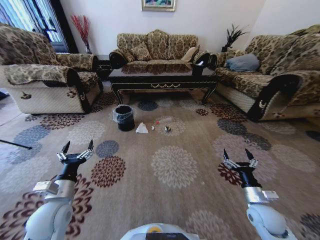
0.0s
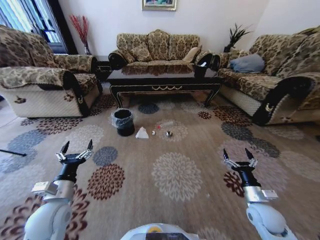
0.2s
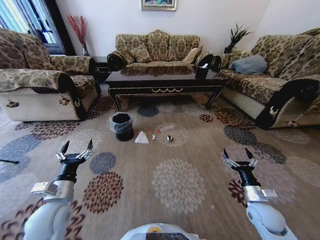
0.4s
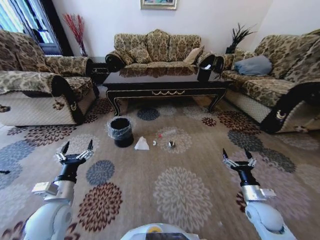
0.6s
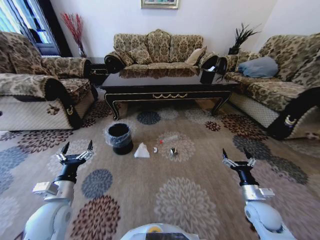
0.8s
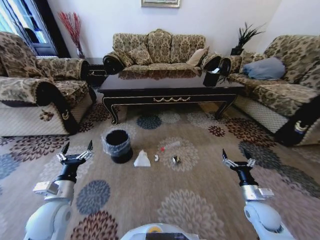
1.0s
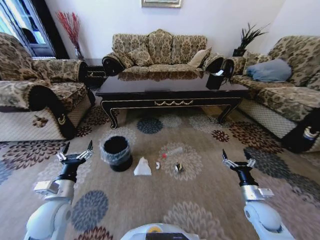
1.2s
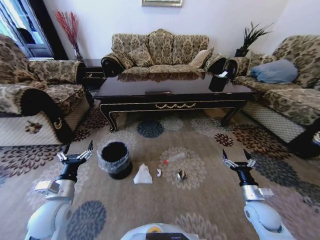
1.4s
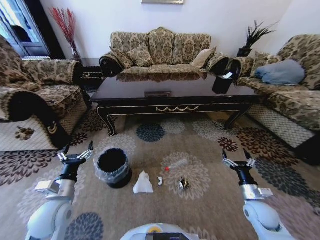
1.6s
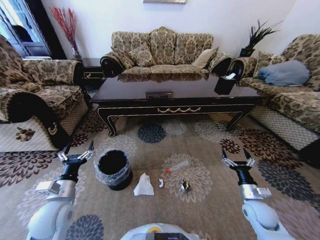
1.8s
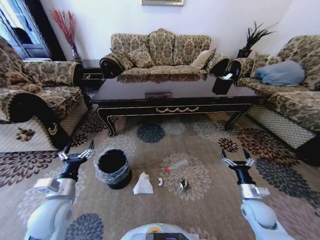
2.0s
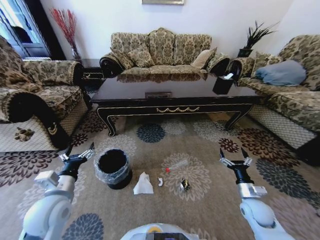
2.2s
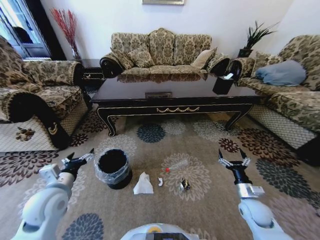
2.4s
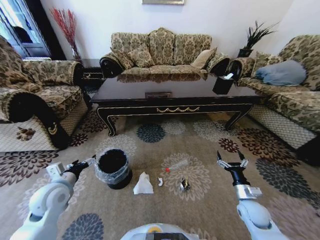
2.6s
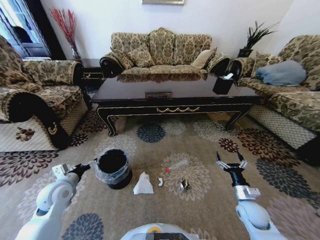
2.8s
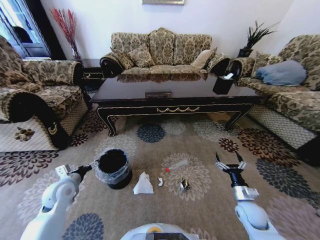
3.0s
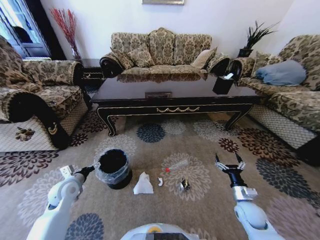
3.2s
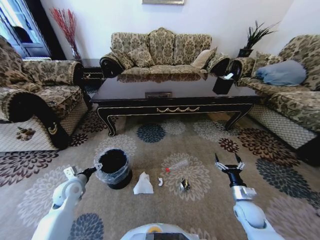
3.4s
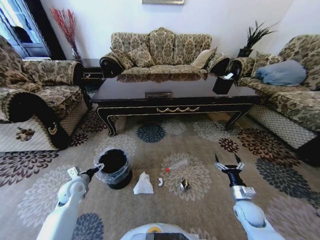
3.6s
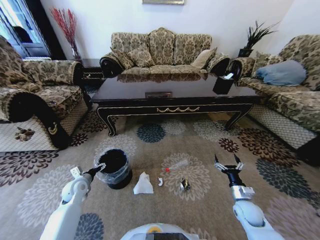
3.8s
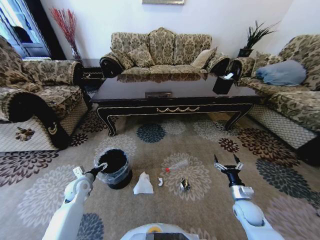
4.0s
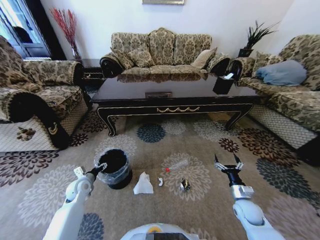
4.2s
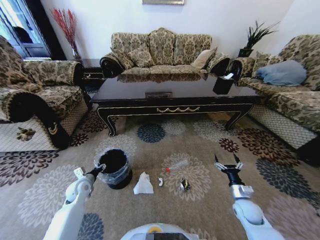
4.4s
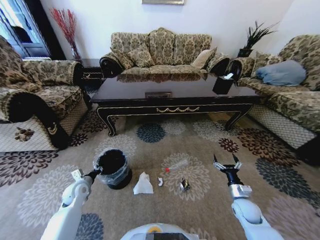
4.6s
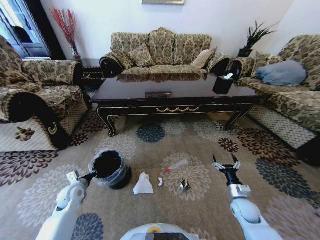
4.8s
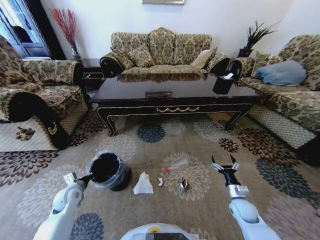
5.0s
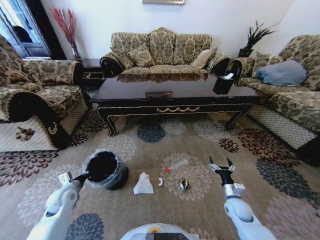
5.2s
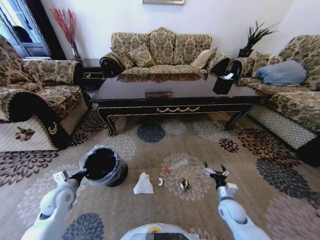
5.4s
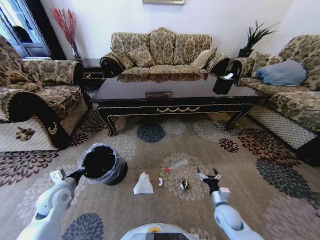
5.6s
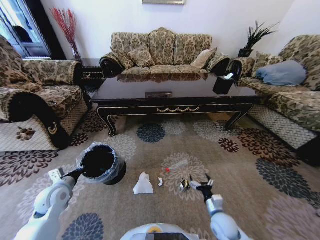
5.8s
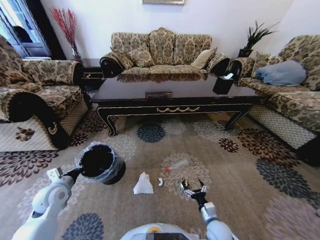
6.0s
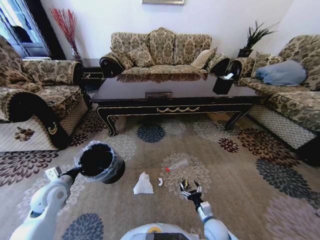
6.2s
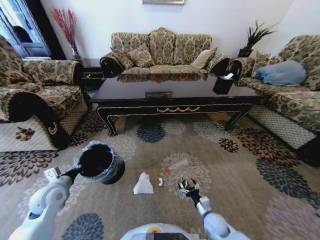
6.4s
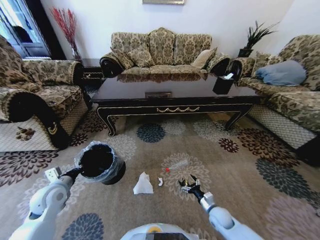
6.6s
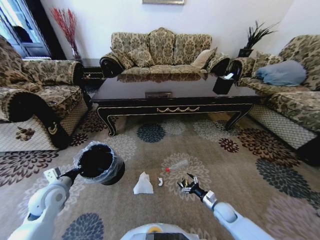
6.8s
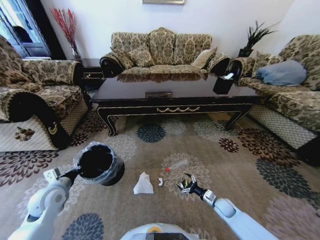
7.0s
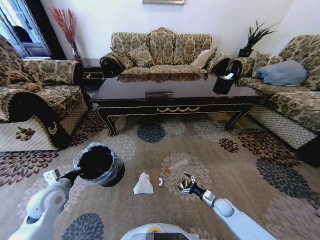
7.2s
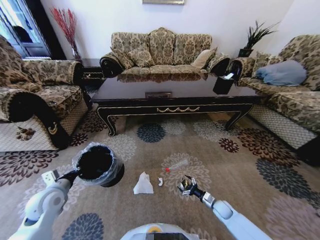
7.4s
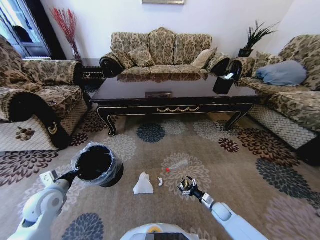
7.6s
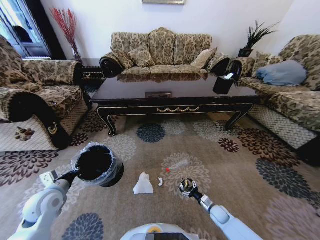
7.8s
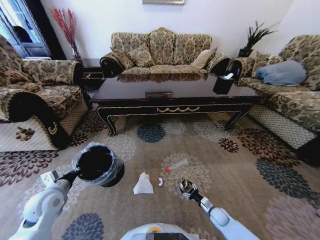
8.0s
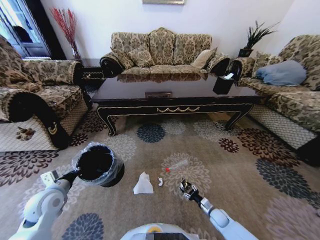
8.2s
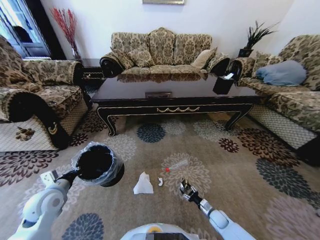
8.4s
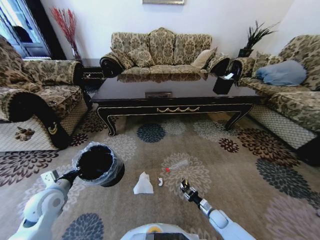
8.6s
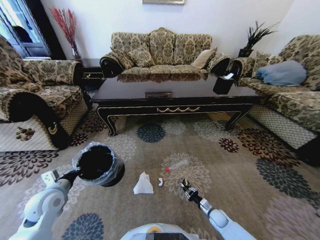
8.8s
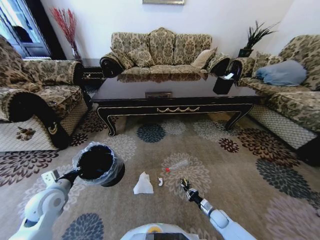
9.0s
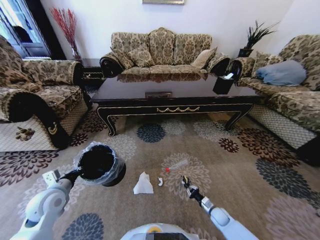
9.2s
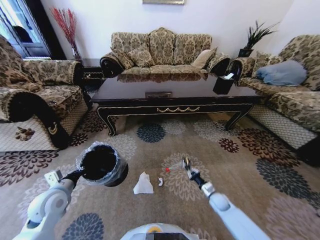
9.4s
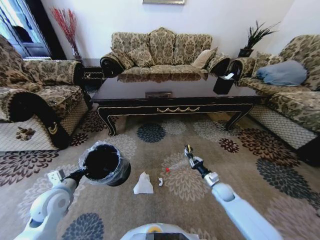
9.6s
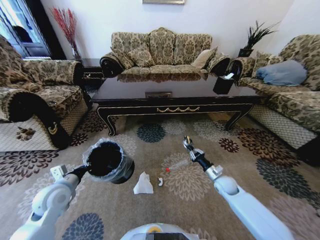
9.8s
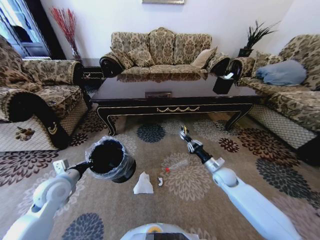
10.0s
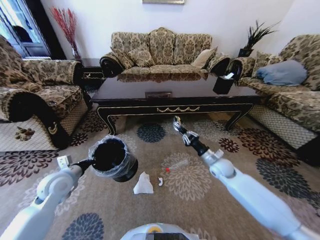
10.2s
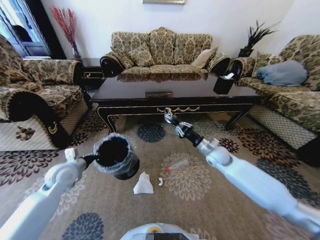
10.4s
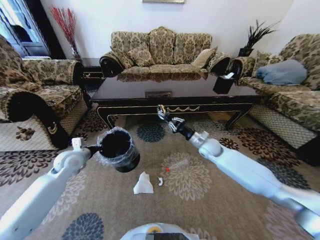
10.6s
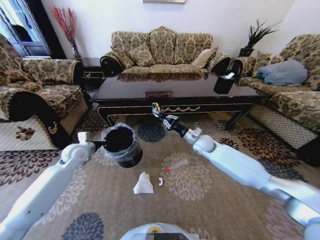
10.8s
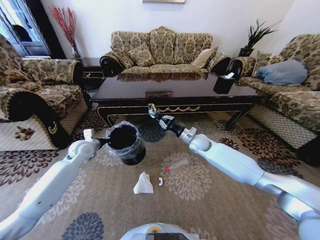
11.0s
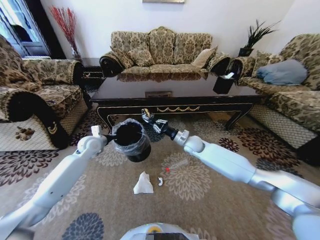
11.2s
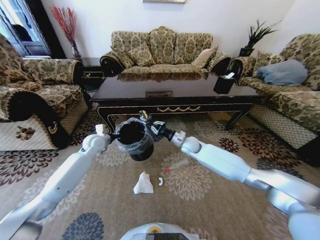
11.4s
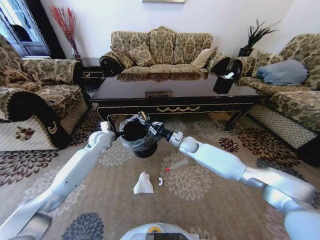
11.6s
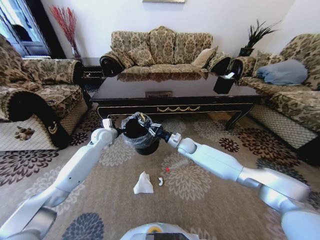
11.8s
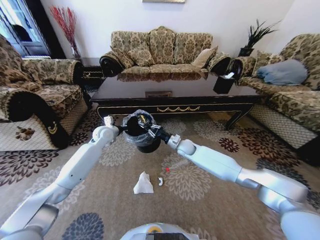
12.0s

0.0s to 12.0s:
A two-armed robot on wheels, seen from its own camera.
Task of the whole recording: Move to the front of the table and pick up the trash from the floor, then place it into the trash bin.
1.6s to 3.0s: The left gripper shifts about 10 cm forward.
3.0s to 4.4s: The left gripper heads downward, covering some 10 cm, and closes up.
4.4s to 6.0s: The left gripper moves upward and backward, approximately 10 cm, and closes up, while the right gripper shifts roughly 15 cm to the left, backward and downward.
6.0s to 7.6s: The right gripper moves to the right, forward and downward, approximately 15 cm.
7.6s to 9.0s: The right gripper closes up.
9.0s to 10.4s: The right gripper heads upward and forward, covering about 40 cm, while the left gripper is displaced forward by approximately 10 cm.
10.4s to 12.0s: The left gripper shifts approximately 20 cm forward and to the right; the right gripper goes some 15 cm to the left and forward.

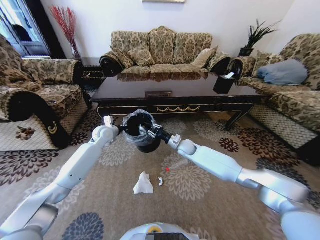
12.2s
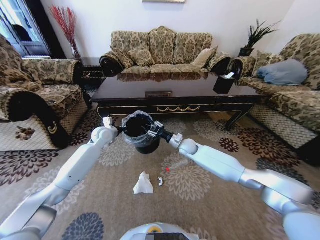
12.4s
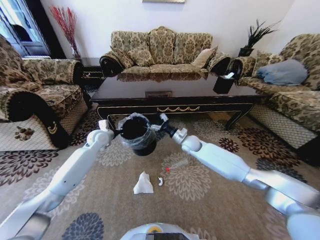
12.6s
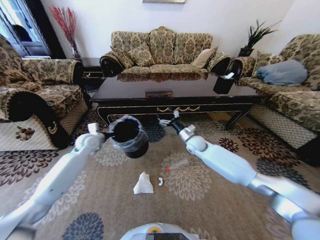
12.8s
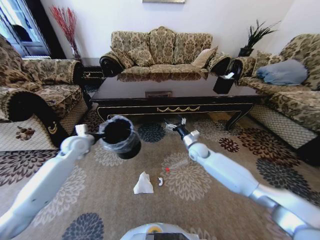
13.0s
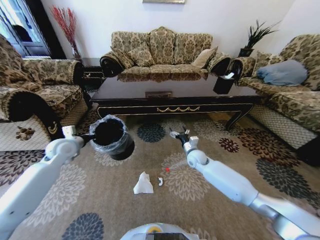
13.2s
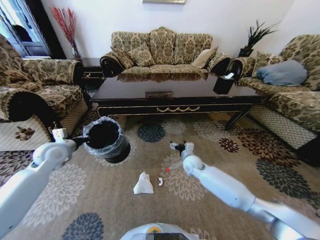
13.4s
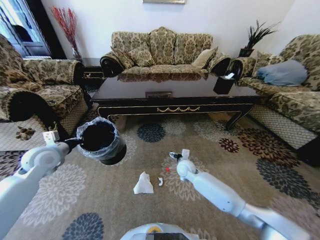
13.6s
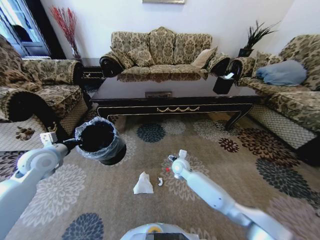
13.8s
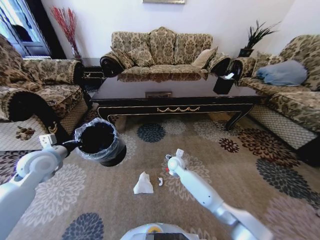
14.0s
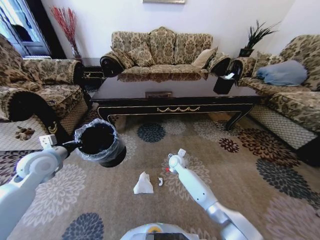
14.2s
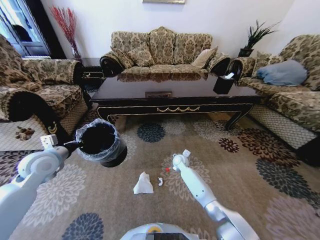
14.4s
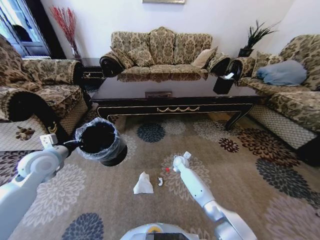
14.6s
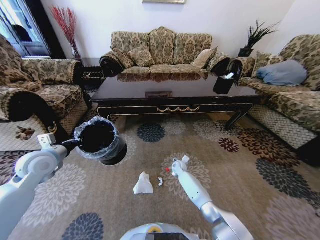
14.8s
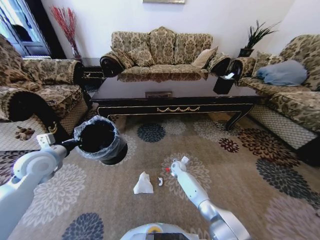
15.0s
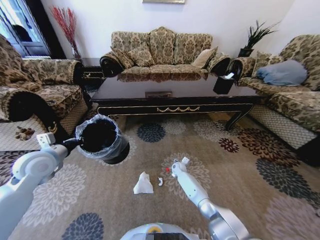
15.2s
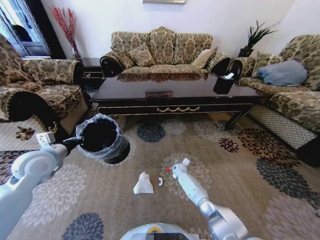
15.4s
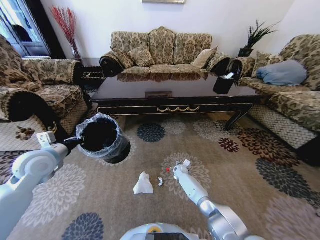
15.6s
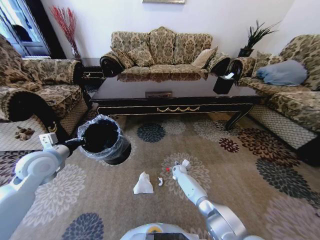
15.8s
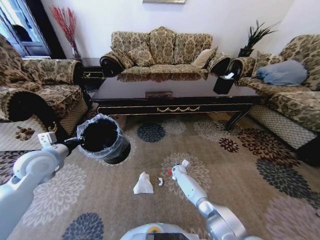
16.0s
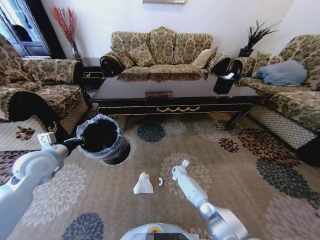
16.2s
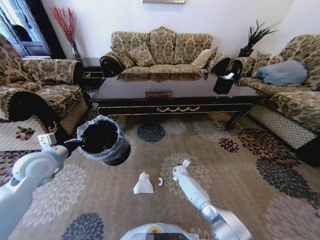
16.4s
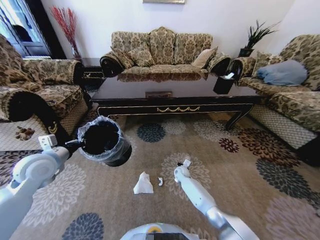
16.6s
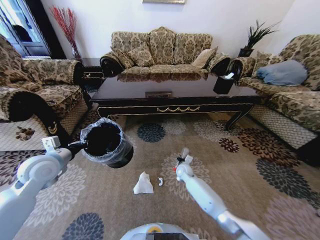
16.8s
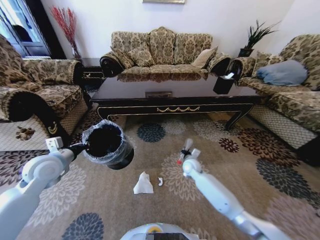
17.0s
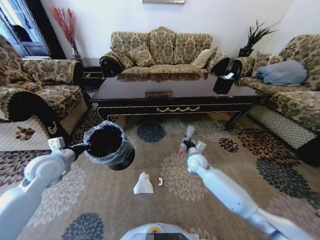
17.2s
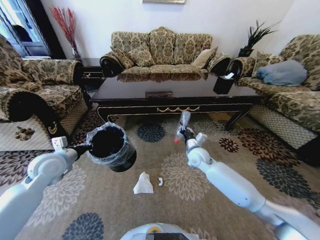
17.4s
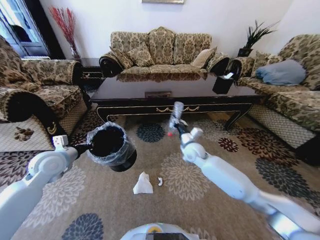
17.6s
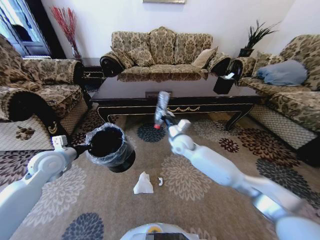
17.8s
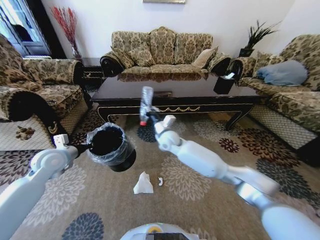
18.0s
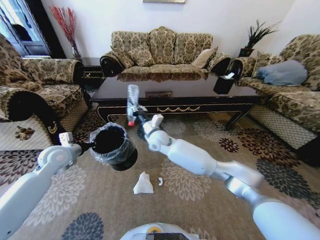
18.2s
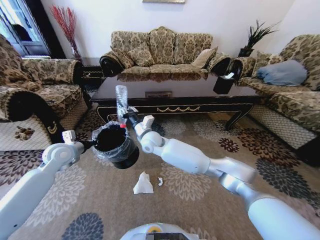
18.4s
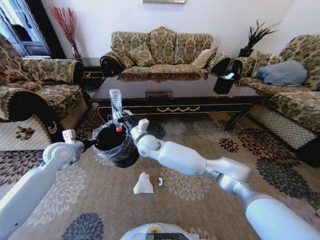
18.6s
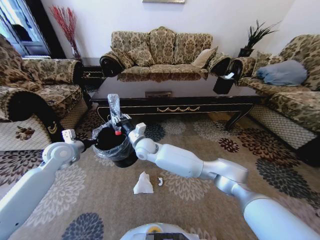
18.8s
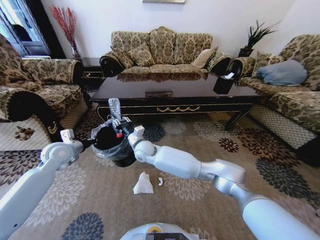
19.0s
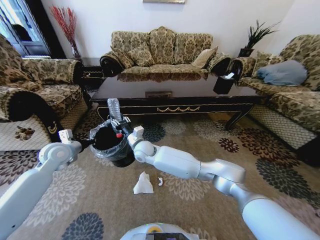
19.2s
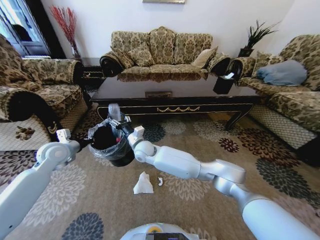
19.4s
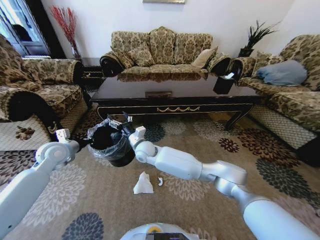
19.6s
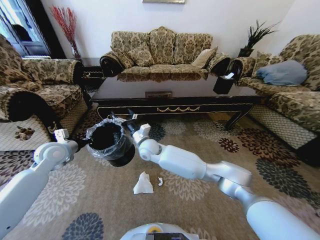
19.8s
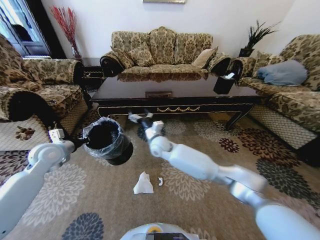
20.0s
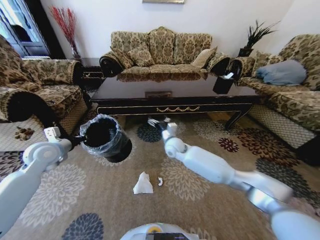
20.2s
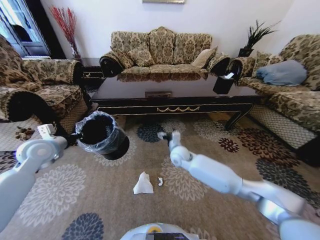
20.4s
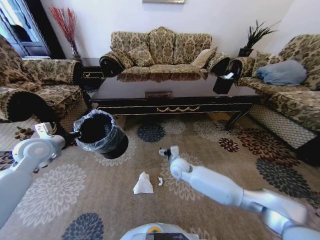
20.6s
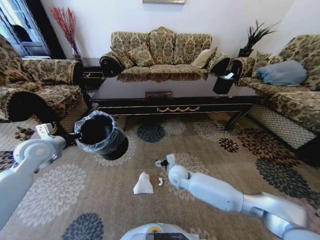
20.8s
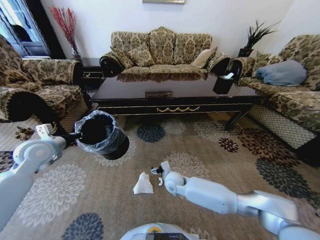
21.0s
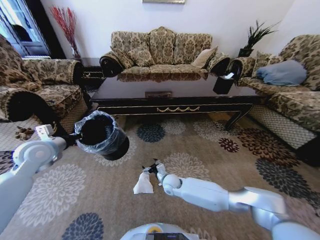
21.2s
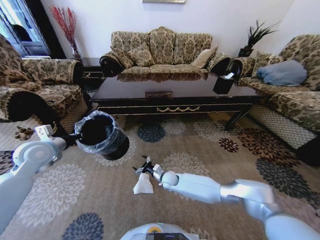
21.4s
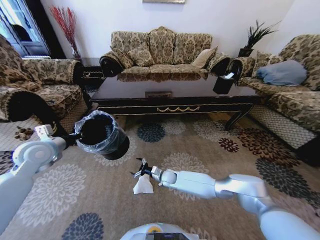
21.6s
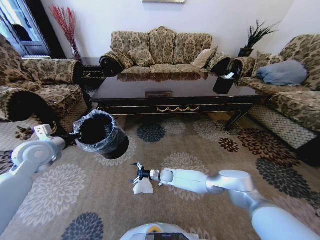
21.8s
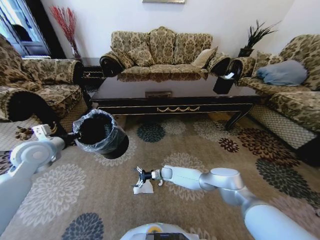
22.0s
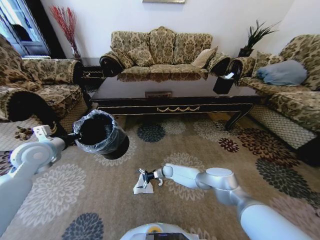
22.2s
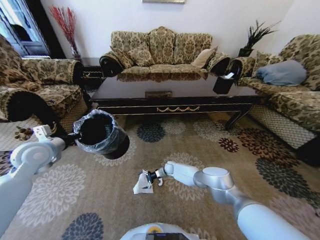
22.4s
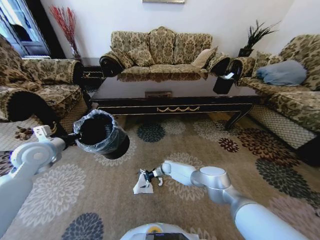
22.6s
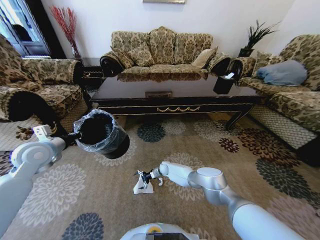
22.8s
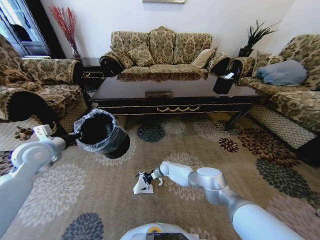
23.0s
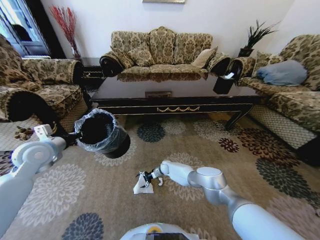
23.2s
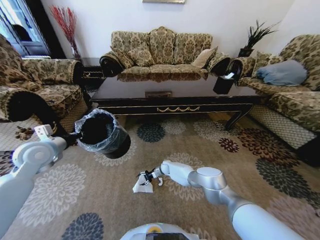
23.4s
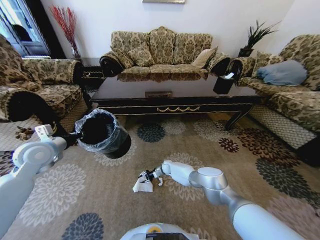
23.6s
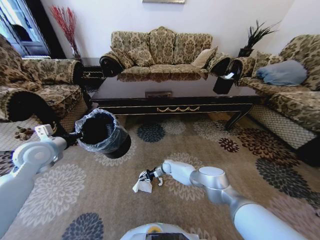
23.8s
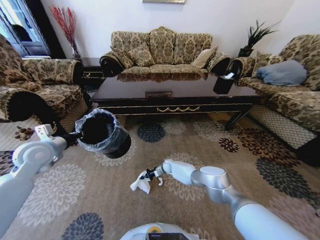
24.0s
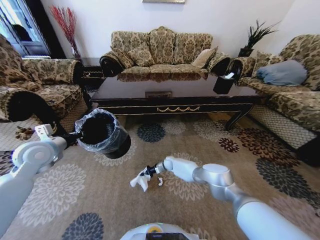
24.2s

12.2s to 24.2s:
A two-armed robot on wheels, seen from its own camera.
Task of the whole recording: Move to the front of the table and pick up the trash from the floor, then place it into the trash bin.
12.2s to 13.8s: The right gripper travels backward and downward by roughly 10 cm, and opens its fingers. Meanwhile the left gripper is displaced backward and to the left by about 25 cm.
13.8s to 15.2s: The right gripper is displaced downward and forward by roughly 15 cm.
15.2s to 16.6s: The right gripper closes its fingers.
16.6s to 18.2s: The right gripper moves upward and to the left, approximately 35 cm; the left gripper moves forward, roughly 5 cm.
18.2s to 19.8s: The right gripper opens.
19.8s to 21.2s: The right gripper shifts roughly 25 cm downward, to the right and backward.
21.2s to 22.6s: The right gripper shifts approximately 20 cm forward and downward.
22.6s to 24.2s: The right gripper closes.
